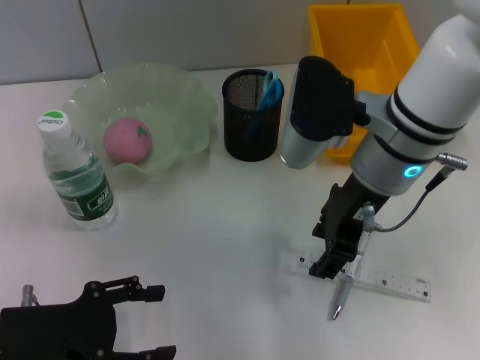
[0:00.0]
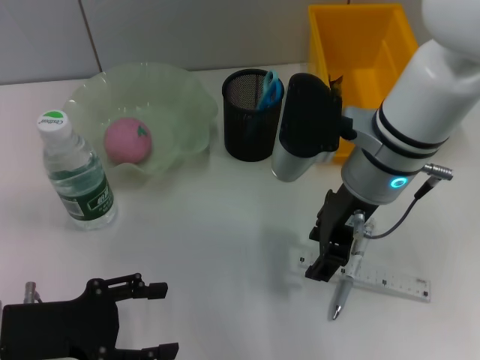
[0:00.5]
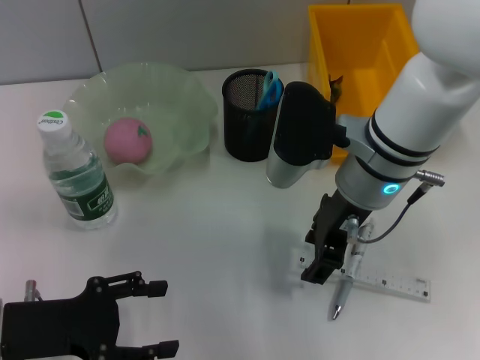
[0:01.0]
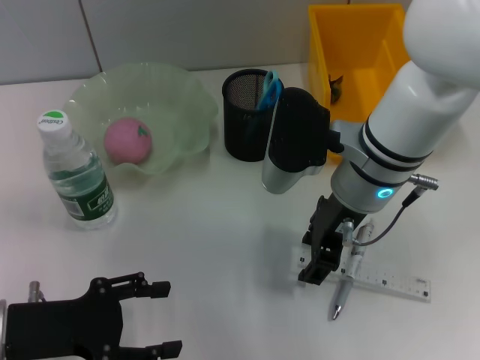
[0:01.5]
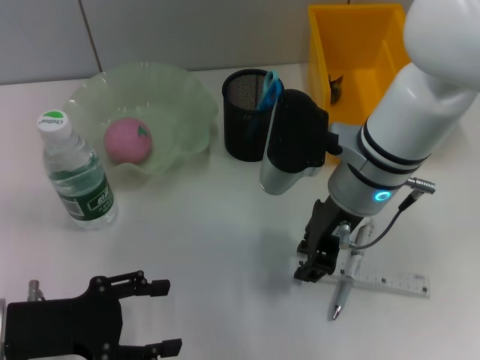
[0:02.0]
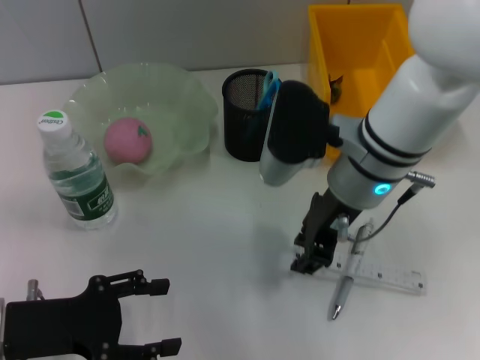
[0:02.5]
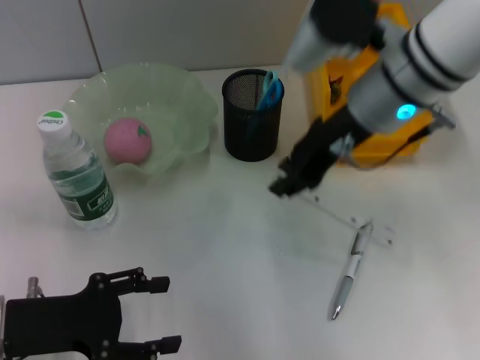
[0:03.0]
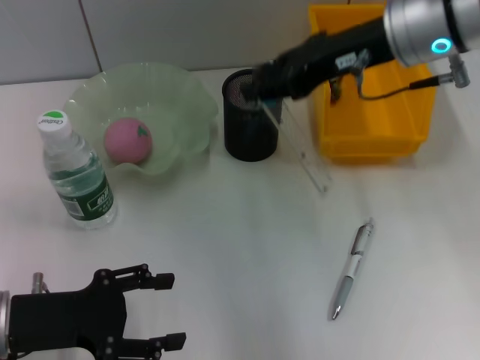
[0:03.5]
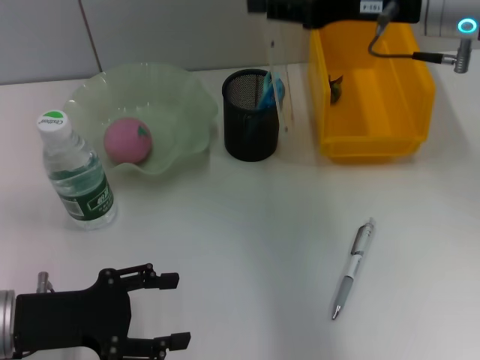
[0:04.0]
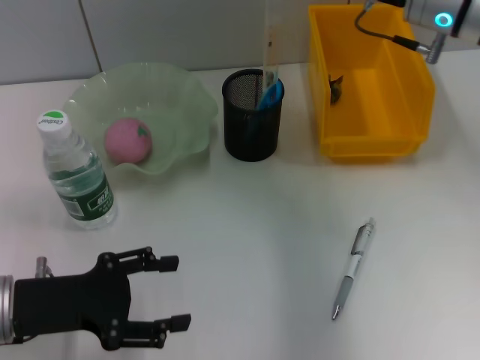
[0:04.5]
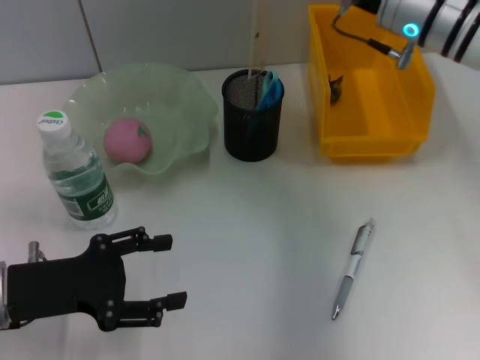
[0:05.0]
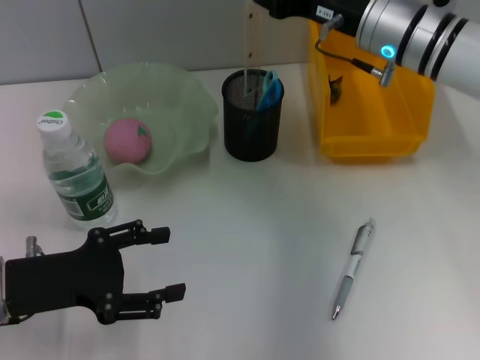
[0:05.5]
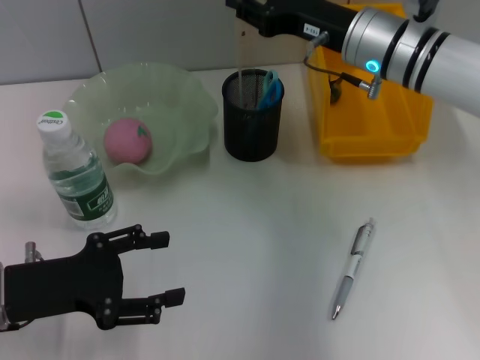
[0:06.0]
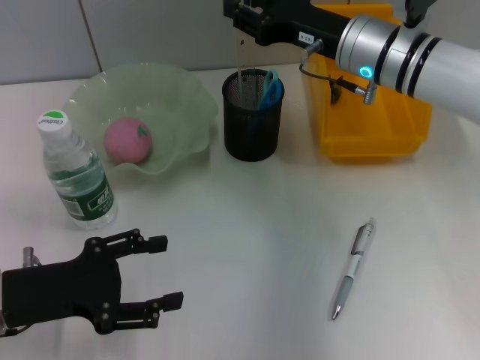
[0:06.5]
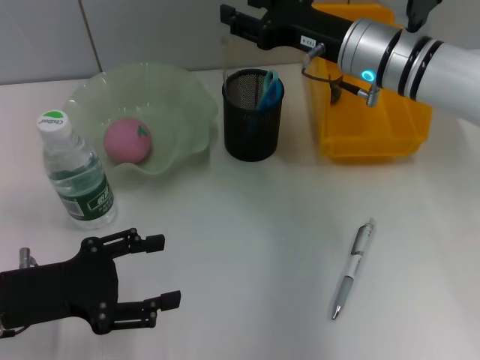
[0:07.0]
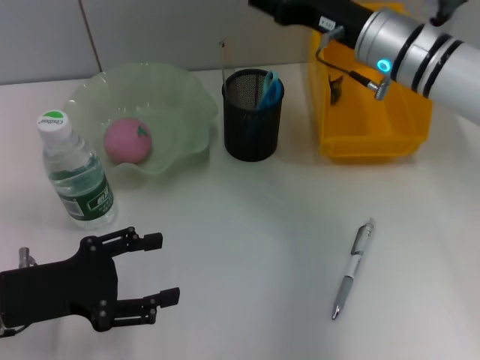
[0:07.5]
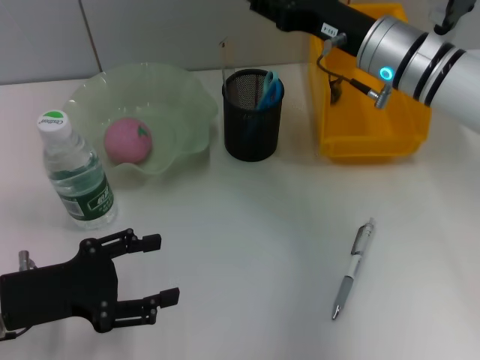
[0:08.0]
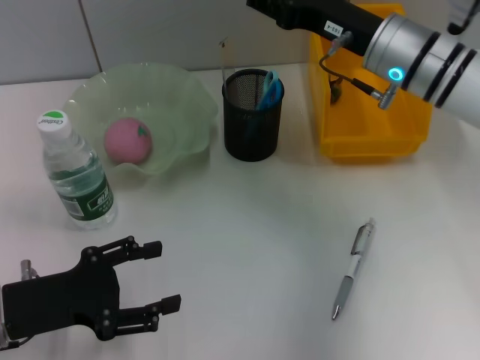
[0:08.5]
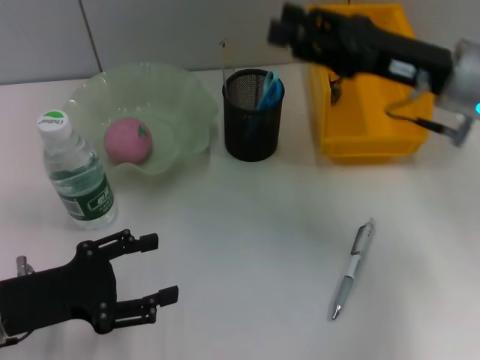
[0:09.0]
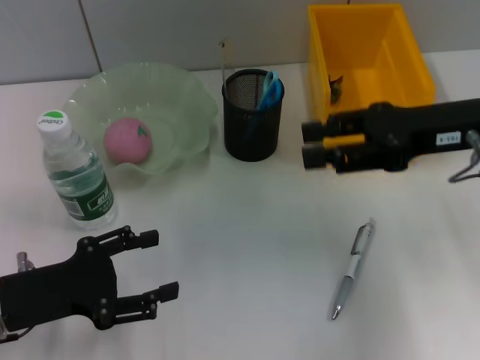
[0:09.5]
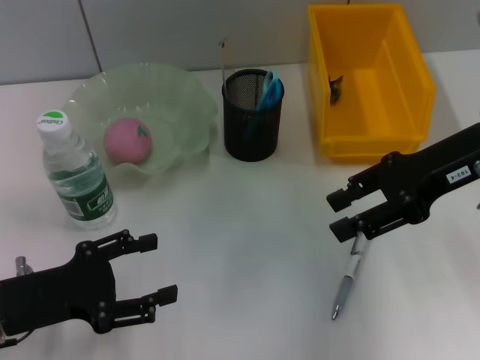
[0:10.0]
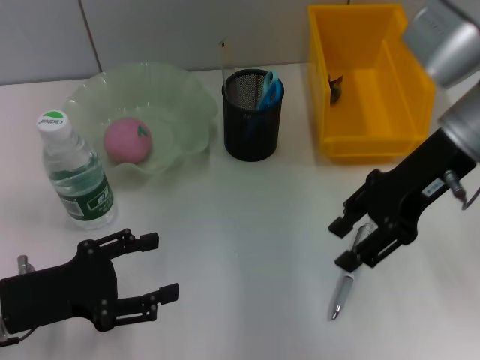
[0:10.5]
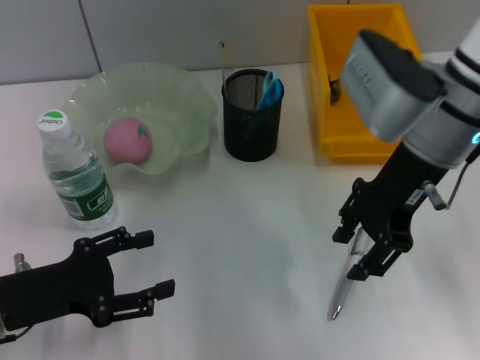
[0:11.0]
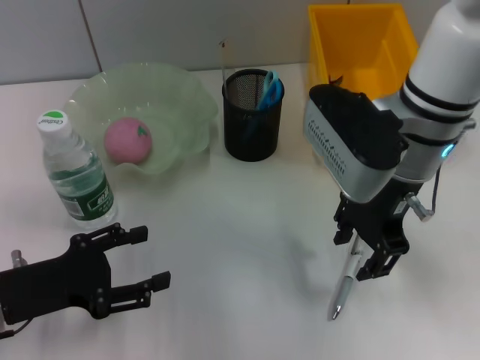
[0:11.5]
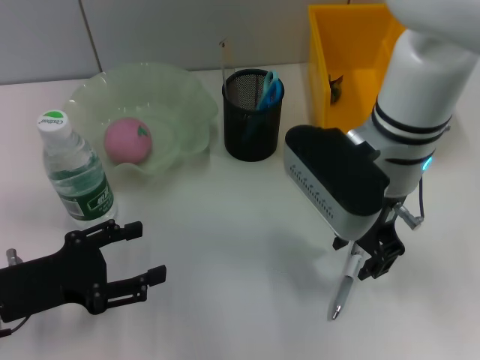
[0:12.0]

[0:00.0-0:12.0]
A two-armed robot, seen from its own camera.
Step, 0:00.0 to 0:02.5: Grab the ruler with the right hand.
Step, 0:03.0 to 0:07.5: Place the ruler into the pen holder with the right hand.
0:00.0 to 0:02.0: The grippers stay close to where they were, moving slightly.
0:02.0 to 0:04.0: The right gripper goes some 15 cm upward and to the right.
0:04.0 to 0:06.0: The right gripper goes about 10 cm downward.
0:06.0 to 0:08.0: The grippers make only small movements.
0:08.0 to 0:10.0: The right gripper is displaced backward and to the right by approximately 10 cm.
0:10.0 to 0:12.0: The right gripper shifts some 15 cm to the left.

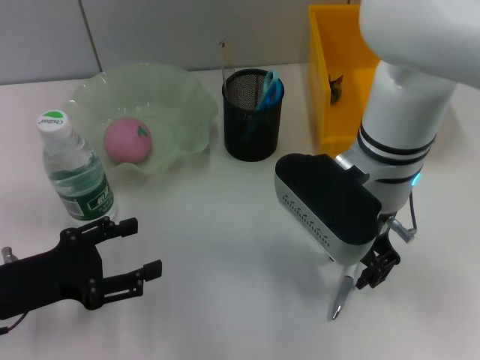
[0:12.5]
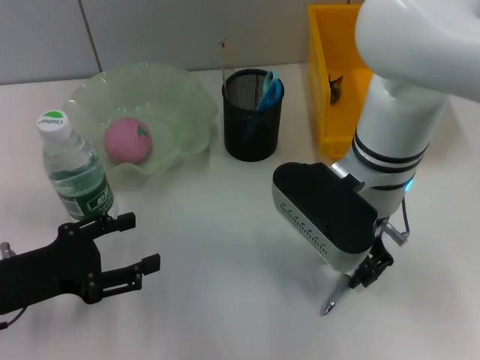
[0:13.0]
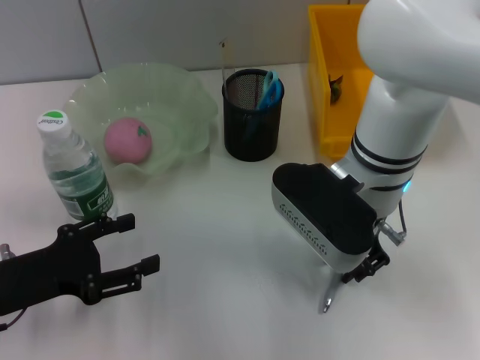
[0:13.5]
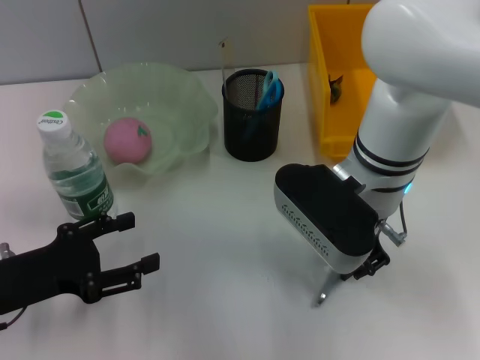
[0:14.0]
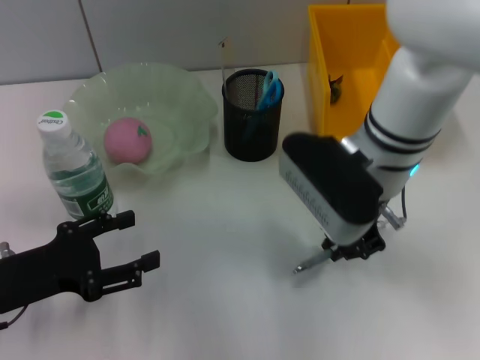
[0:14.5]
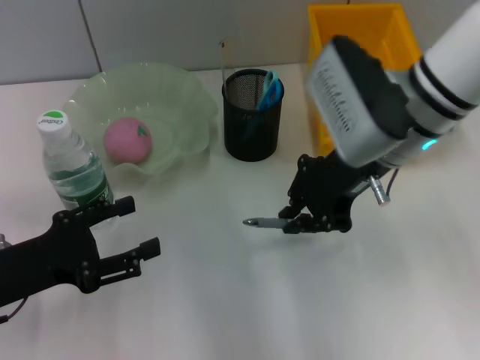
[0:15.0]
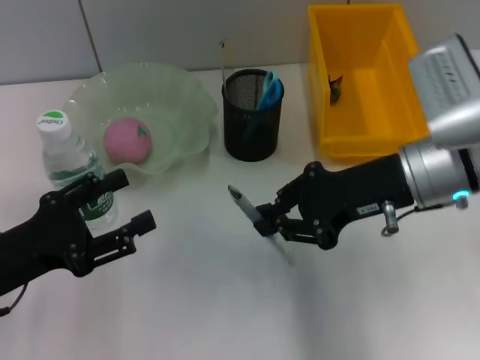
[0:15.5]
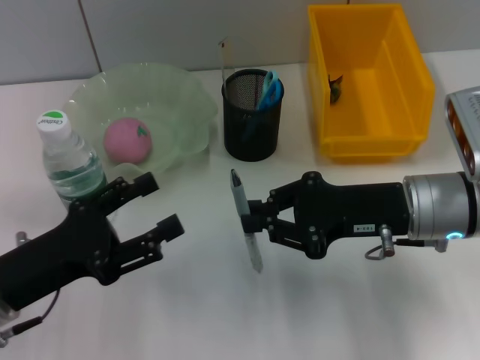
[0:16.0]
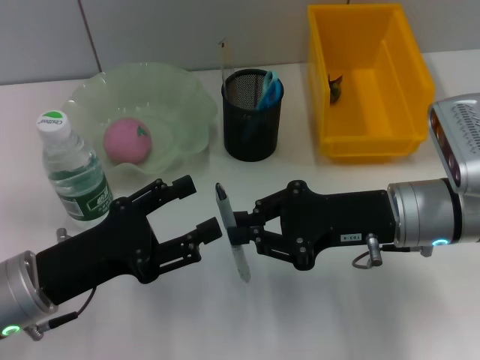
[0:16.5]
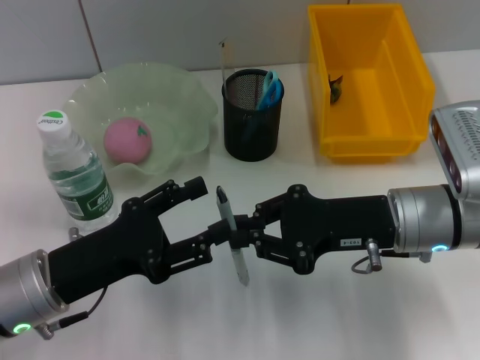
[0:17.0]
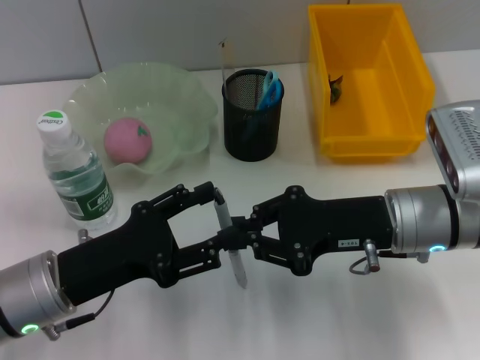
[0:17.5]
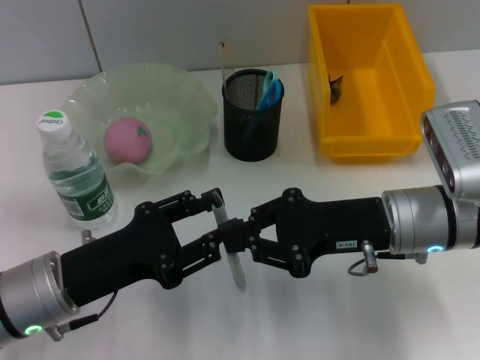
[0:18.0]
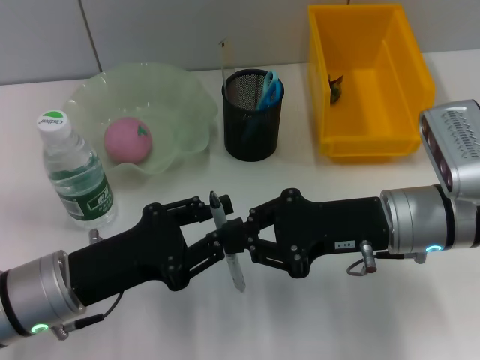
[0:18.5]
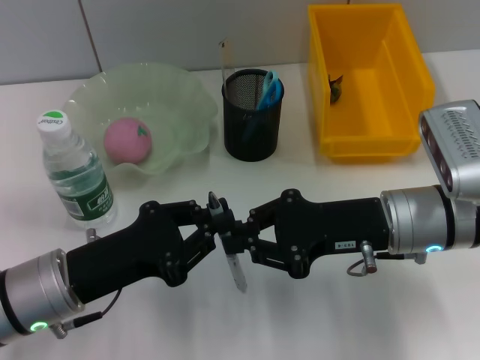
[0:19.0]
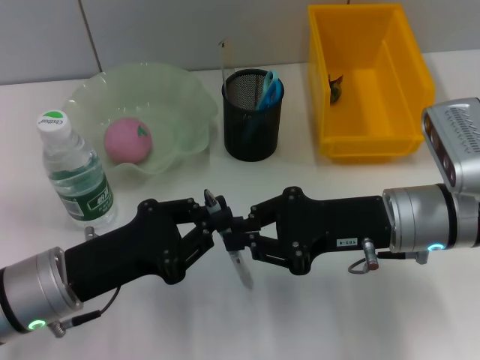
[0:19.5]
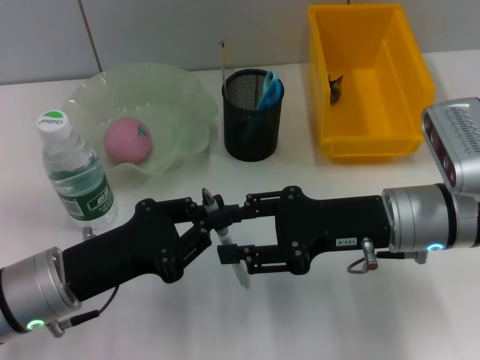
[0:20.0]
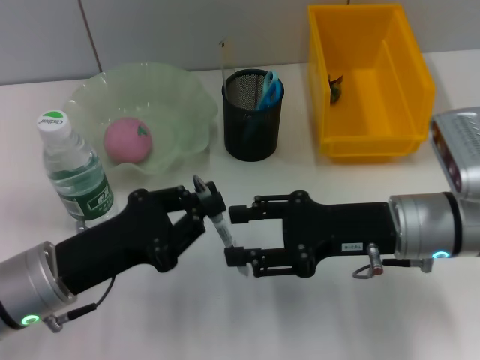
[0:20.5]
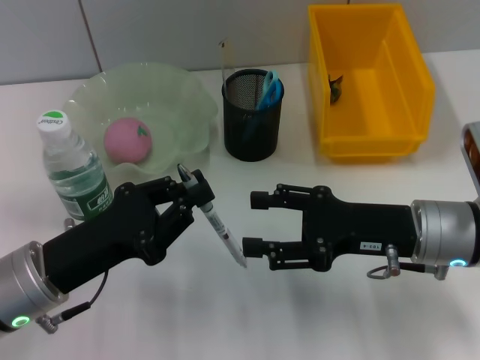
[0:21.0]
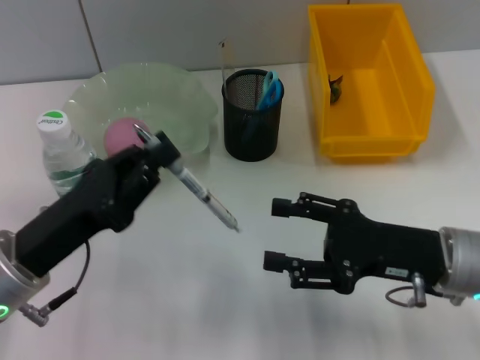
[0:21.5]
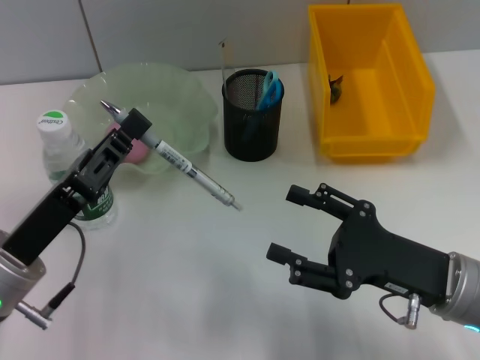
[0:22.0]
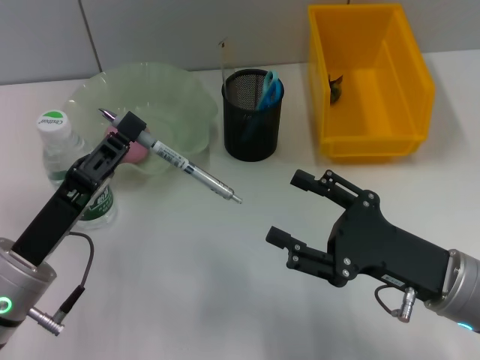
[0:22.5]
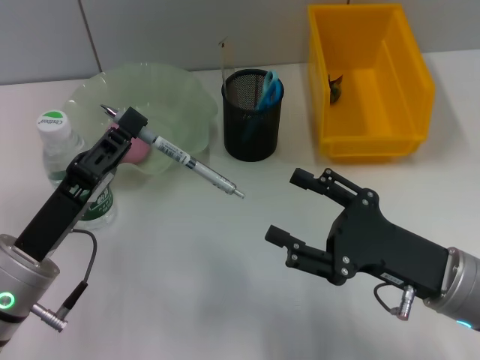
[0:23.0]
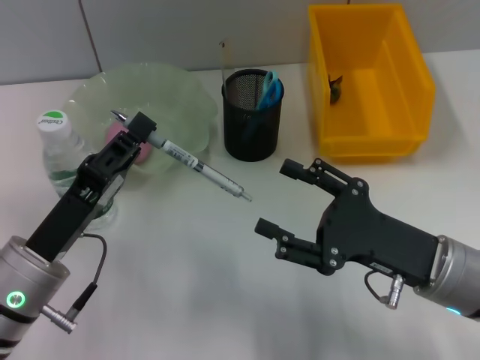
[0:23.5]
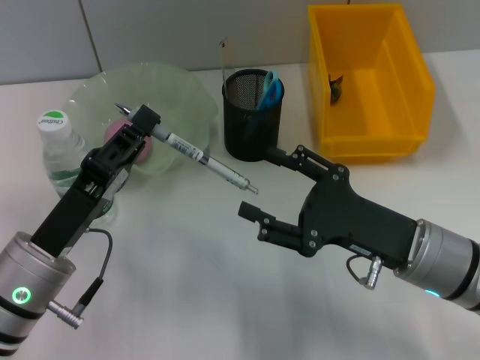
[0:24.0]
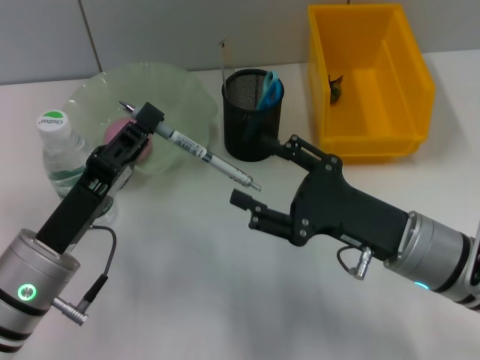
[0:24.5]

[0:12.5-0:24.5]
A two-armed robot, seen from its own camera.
Step, 0:14.5 to 0:20.0: Pass the gray spring-action pen from the right hand to the left hand.
0:12.5 to 0:14.5: The right gripper closes its fingers.
0:14.5 to 0:16.5: The left gripper travels to the right by approximately 5 cm. Meanwhile the right gripper travels to the right, backward and downward by roughly 10 cm.
0:16.5 to 0:18.5: The left gripper closes.
0:18.5 to 0:20.5: The right gripper opens up.
0:20.5 to 0:22.5: The right gripper travels backward by roughly 5 cm.
0:22.5 to 0:24.5: The grippers move only a little.

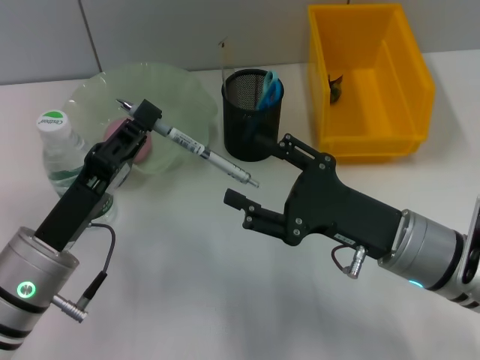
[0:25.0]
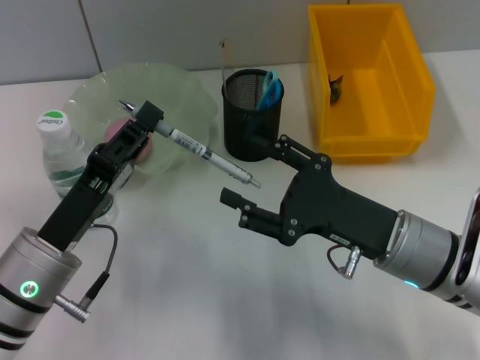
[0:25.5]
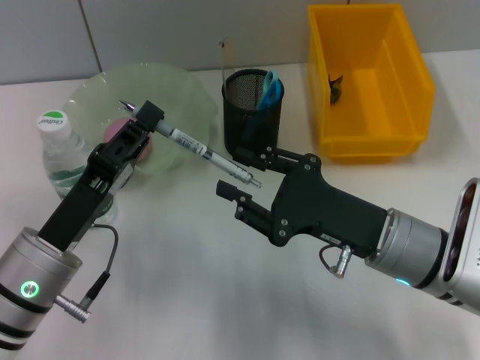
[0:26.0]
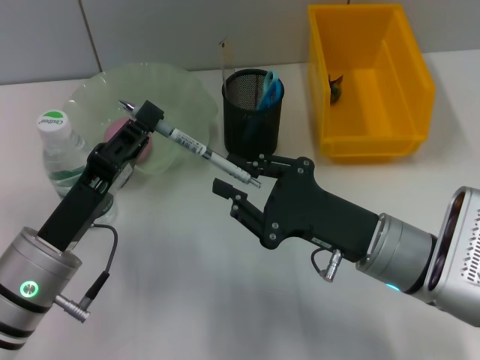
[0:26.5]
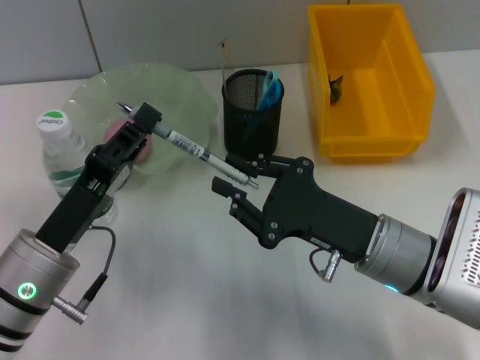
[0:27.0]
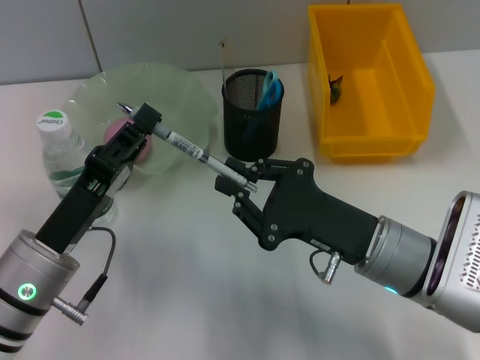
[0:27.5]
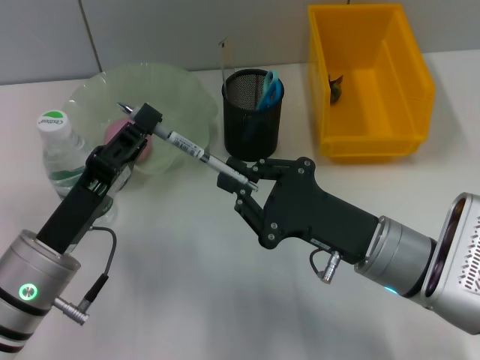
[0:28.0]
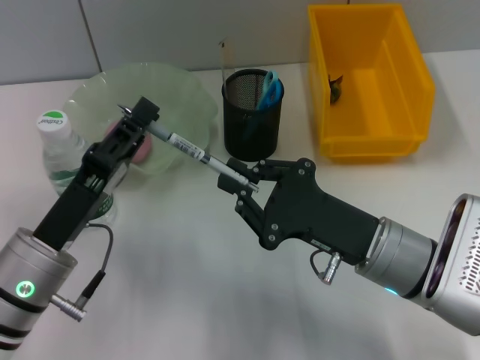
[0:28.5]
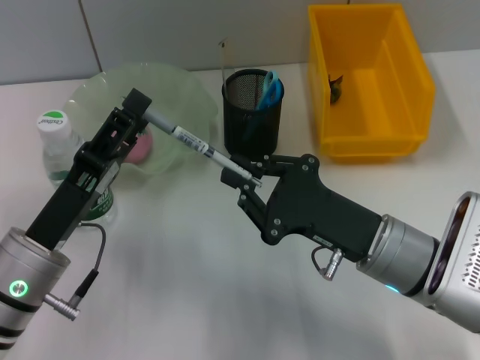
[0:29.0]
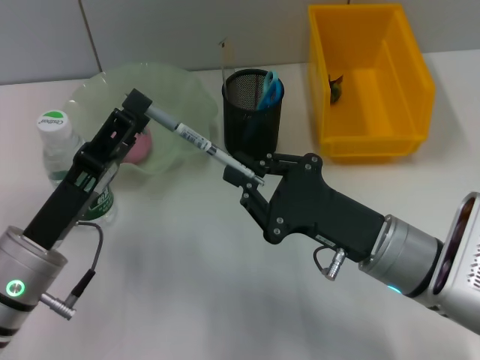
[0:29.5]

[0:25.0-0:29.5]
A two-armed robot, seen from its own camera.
0:25.0 to 0:27.0: The right gripper closes its fingers.
0:27.0 to 0:29.5: The left gripper opens its fingers.
